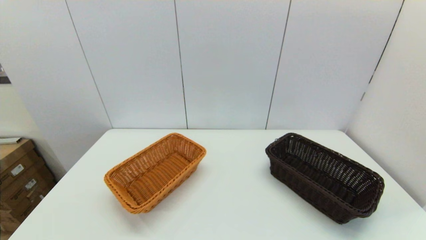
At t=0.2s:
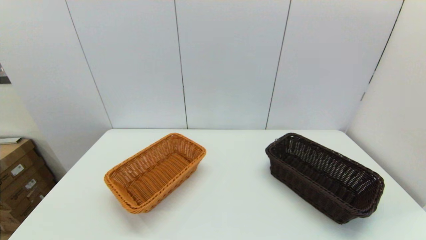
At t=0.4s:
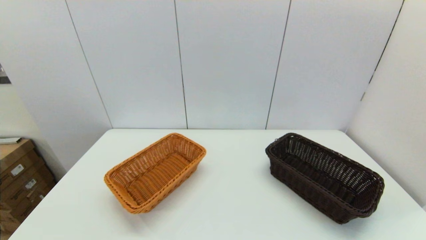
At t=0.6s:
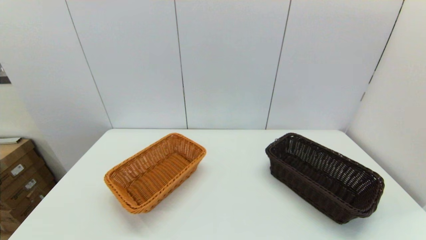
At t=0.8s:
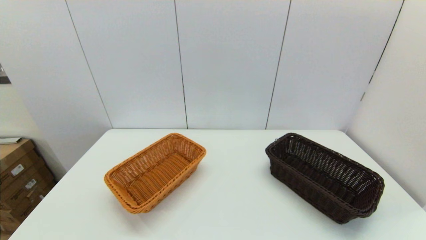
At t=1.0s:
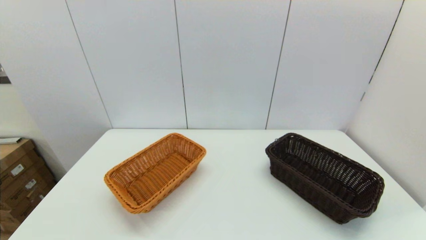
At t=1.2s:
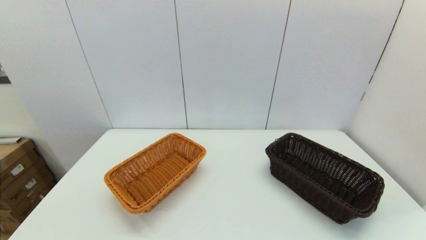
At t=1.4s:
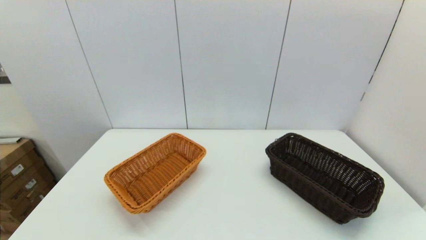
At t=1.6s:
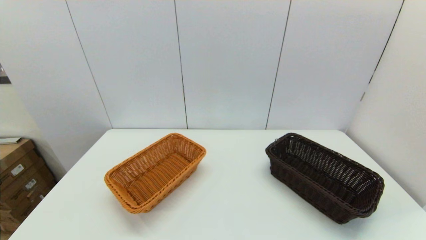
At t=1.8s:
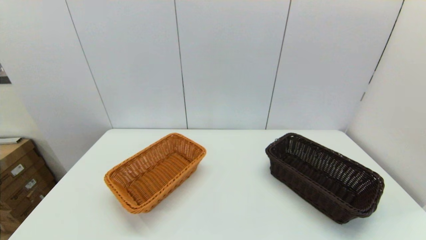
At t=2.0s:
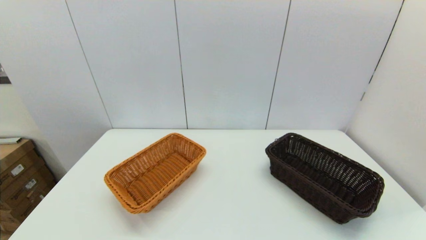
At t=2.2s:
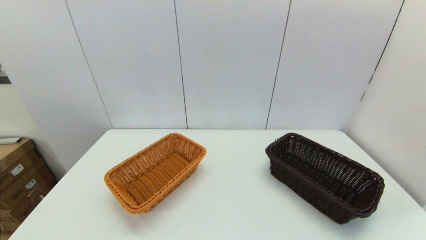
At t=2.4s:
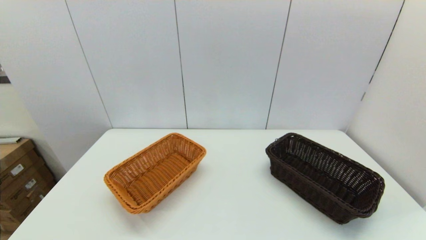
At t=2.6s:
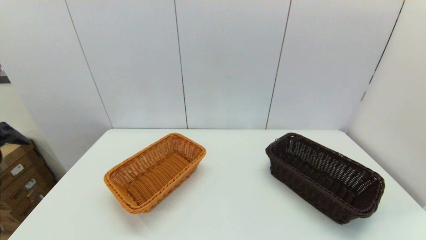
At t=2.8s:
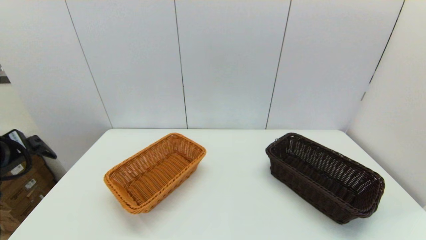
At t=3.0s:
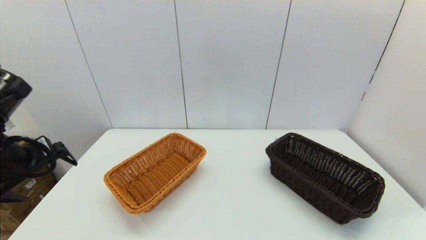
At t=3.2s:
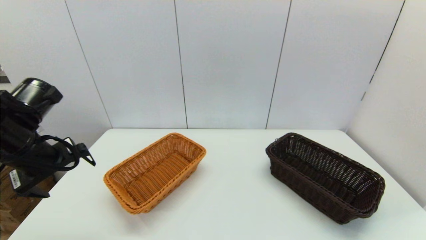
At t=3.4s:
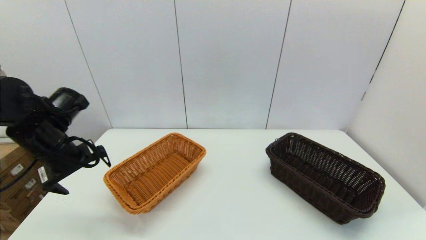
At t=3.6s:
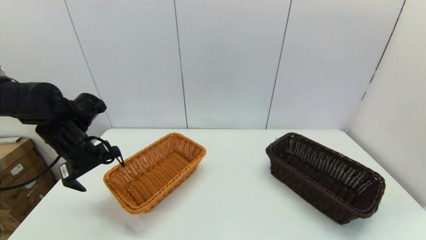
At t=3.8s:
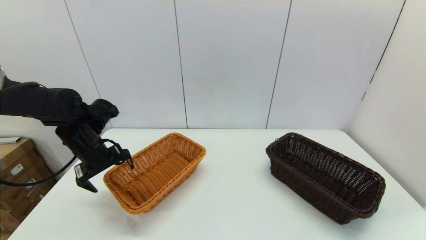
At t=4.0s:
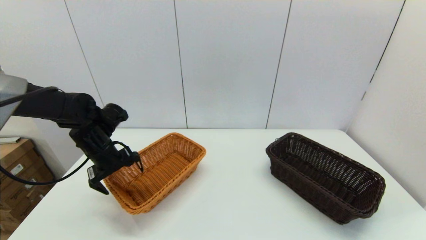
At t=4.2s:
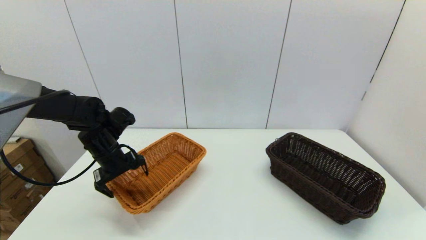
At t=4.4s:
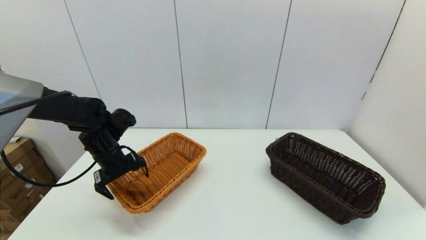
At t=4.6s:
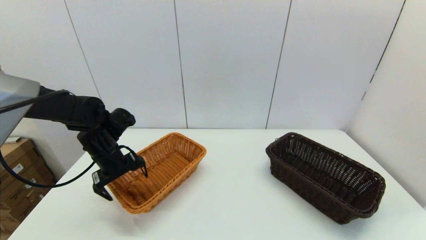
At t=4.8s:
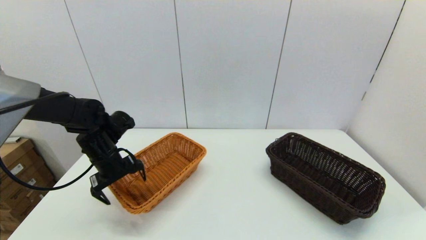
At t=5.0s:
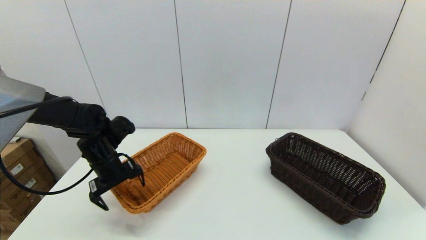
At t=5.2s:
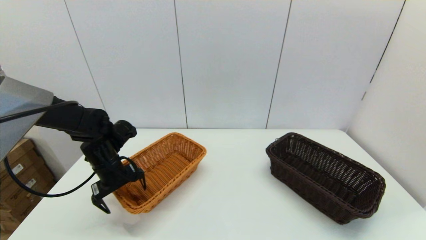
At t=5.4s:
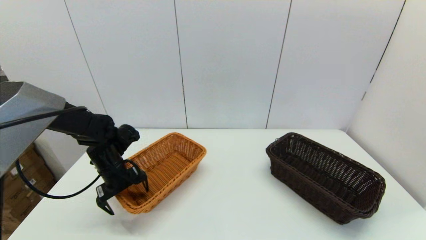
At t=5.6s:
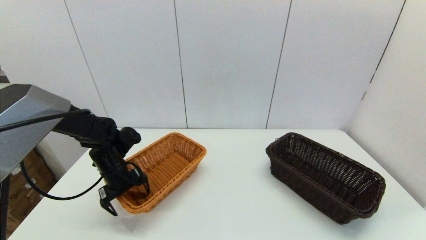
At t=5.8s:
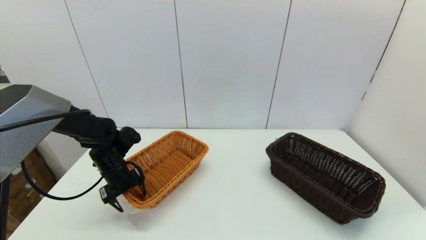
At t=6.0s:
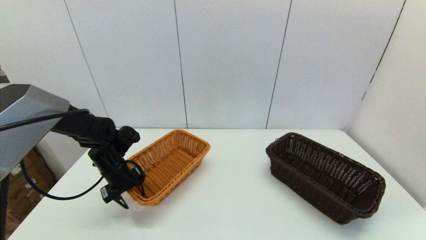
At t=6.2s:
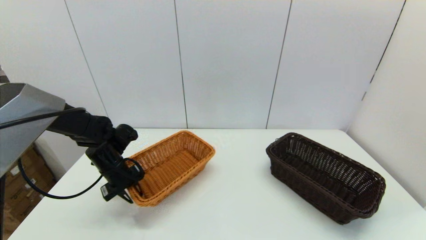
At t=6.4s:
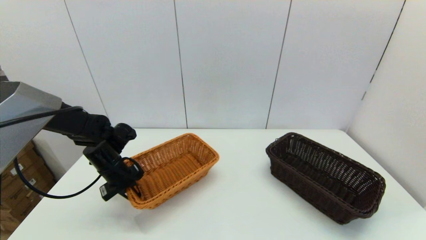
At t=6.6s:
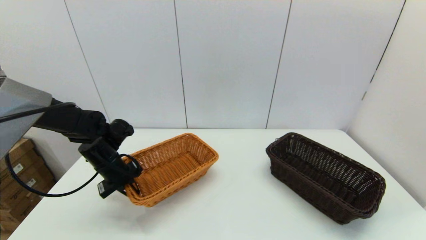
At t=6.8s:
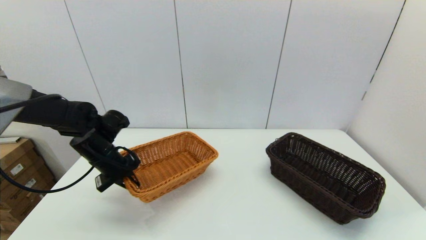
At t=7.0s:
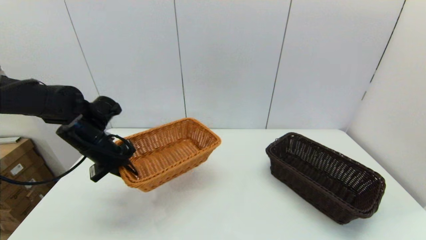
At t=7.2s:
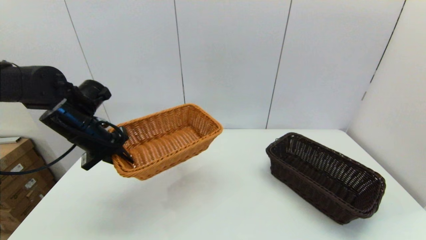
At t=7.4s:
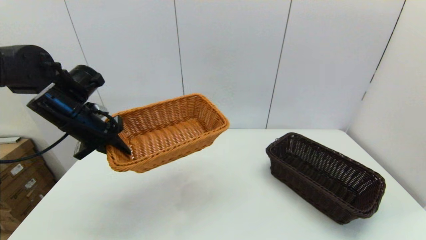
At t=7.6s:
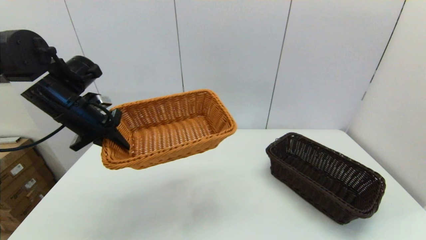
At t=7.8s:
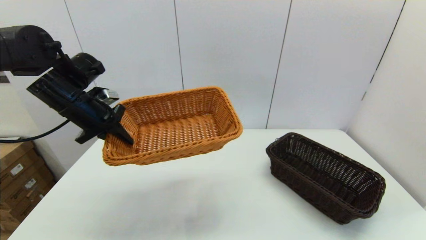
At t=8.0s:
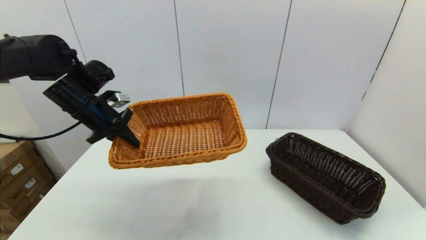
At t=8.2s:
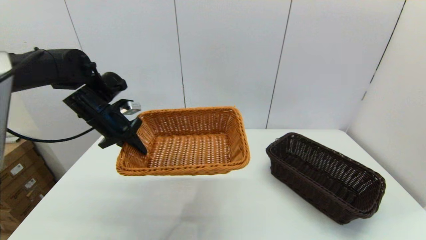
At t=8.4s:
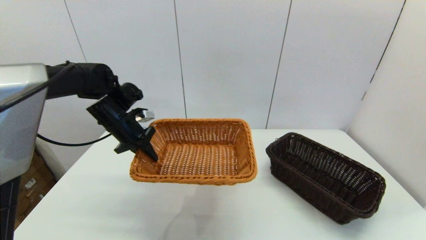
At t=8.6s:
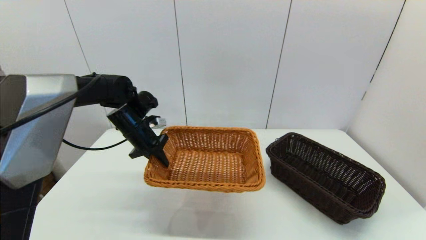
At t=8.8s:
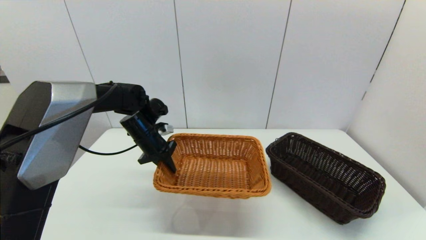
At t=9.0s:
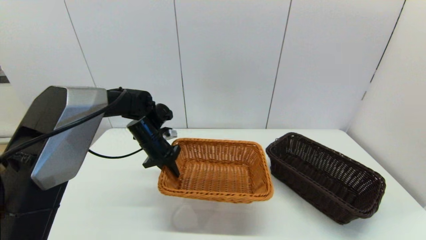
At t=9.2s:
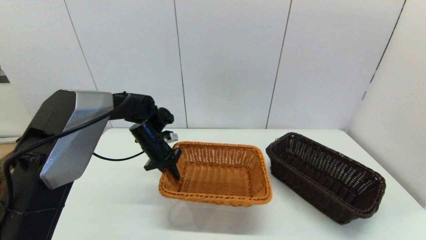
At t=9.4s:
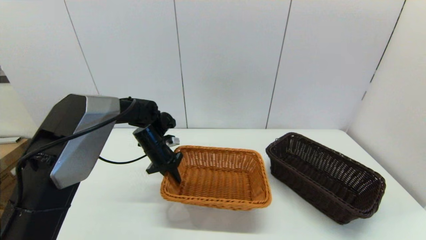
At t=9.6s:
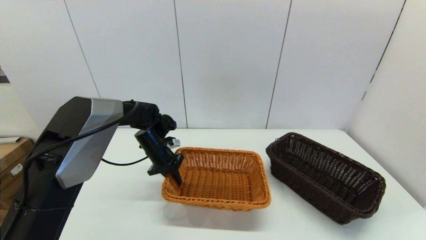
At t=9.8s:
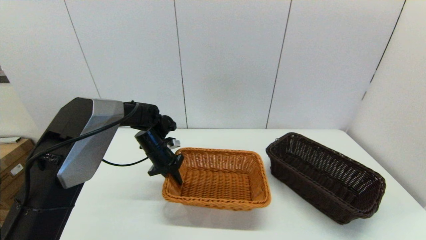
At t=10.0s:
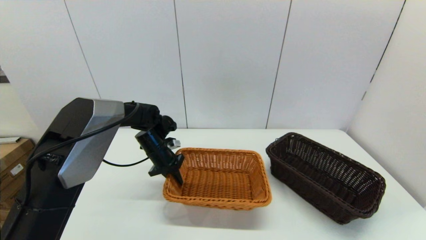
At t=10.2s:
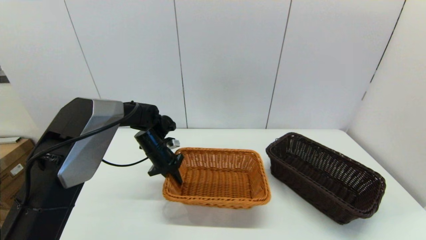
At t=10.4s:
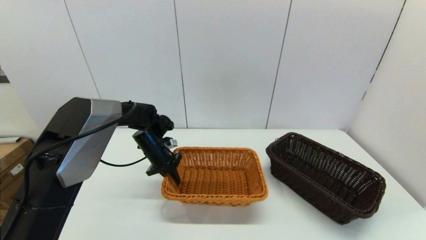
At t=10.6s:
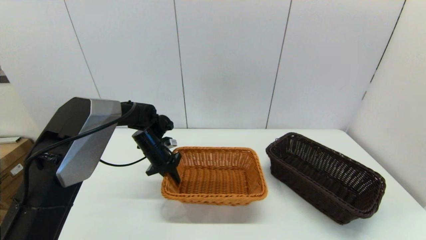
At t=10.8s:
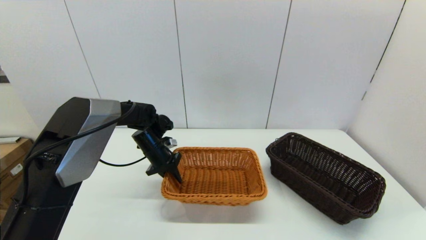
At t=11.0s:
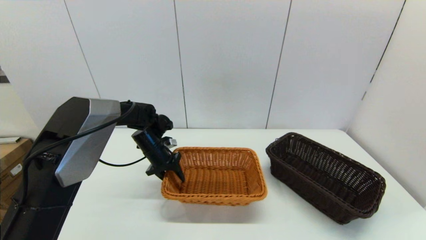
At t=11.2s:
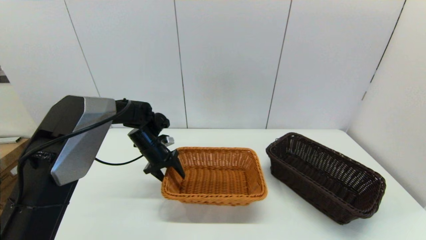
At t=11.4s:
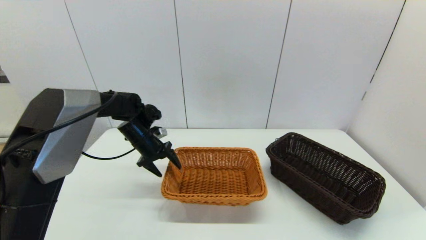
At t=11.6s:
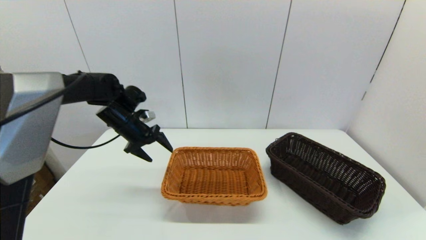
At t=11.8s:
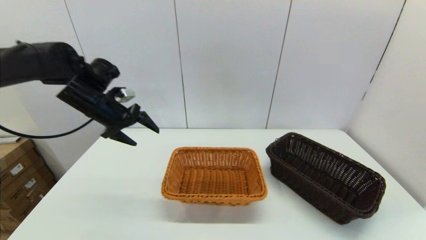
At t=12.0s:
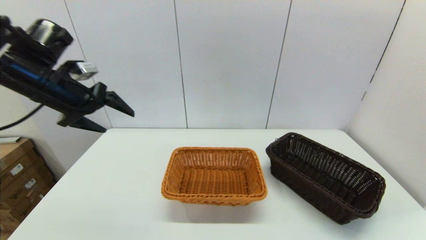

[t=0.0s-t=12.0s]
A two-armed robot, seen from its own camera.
Task of the whole recording: stack a basket on top of another basket.
Step, t=2.6s to t=6.4s: Grasp the light basket with the left gripper.
Step, t=6.8s to t=11.4s: Place the light basket on the middle of the table with the left gripper.
t=1.6s to t=3.0s: The left gripper goes roughly 25 cm forward.
t=3.0s to t=4.4s: The left gripper heads forward and downward, covering about 20 cm.
t=4.4s to t=6.0s: The left gripper goes roughly 5 cm downward, and closes.
t=6.0s to t=7.6s: The left gripper heads upward, covering roughly 20 cm, and closes.
t=7.6s to t=9.0s: The left gripper travels downward, to the right and forward by approximately 20 cm.
t=9.0s to t=10.4s: The grippers make only small movements.
t=10.4s to t=12.0s: The left gripper goes approximately 30 cm upward, backward and to the left, and opens.

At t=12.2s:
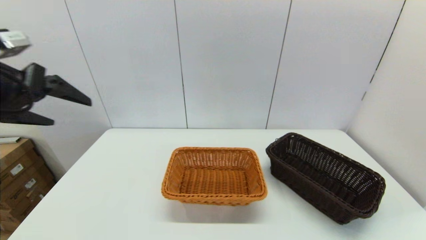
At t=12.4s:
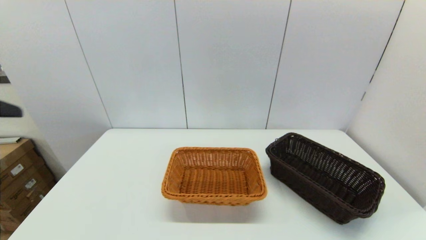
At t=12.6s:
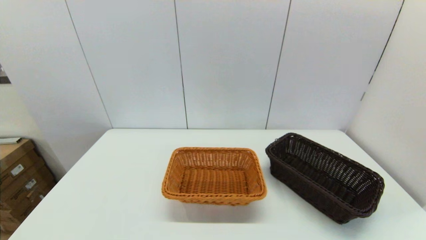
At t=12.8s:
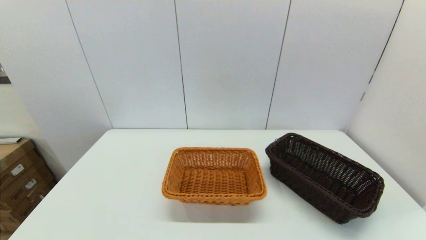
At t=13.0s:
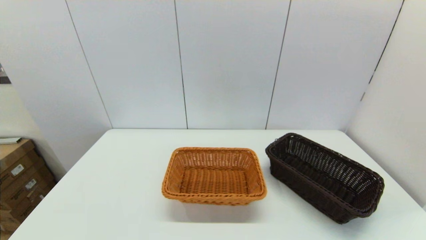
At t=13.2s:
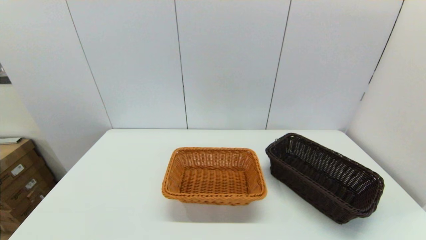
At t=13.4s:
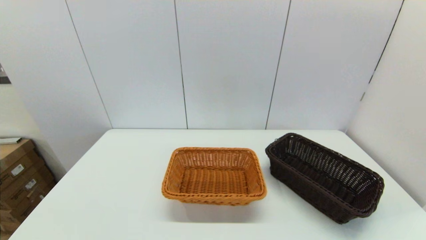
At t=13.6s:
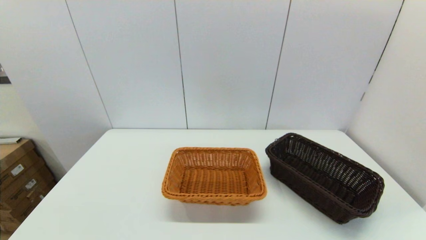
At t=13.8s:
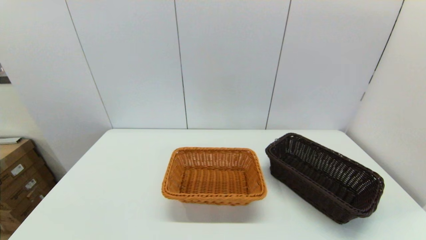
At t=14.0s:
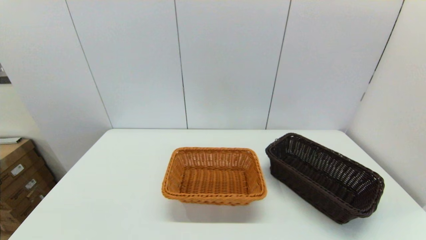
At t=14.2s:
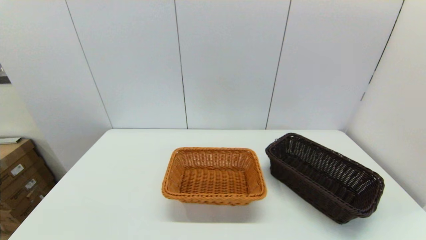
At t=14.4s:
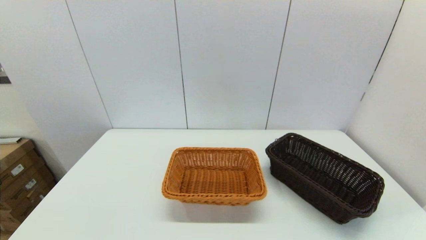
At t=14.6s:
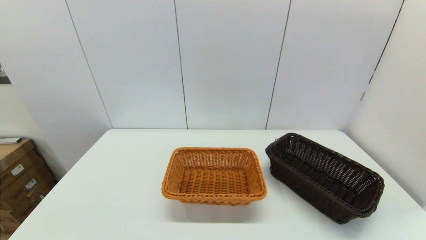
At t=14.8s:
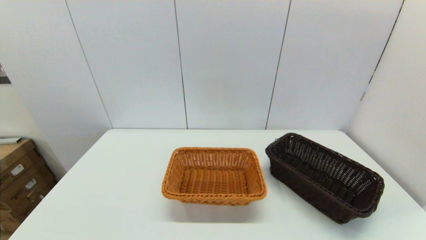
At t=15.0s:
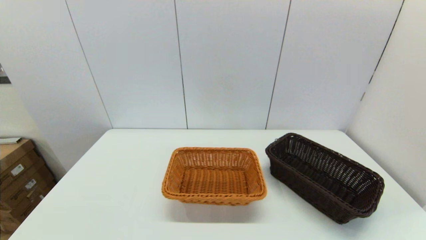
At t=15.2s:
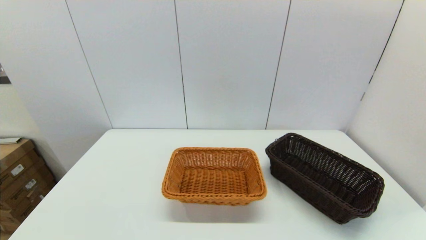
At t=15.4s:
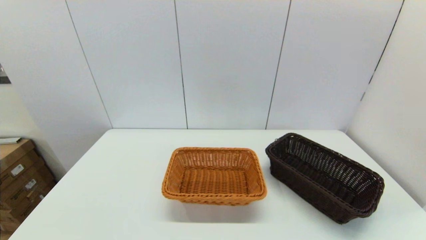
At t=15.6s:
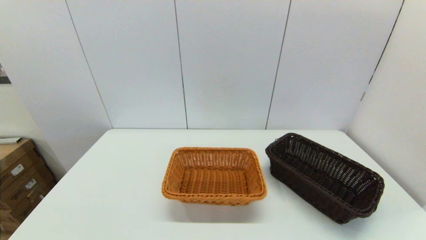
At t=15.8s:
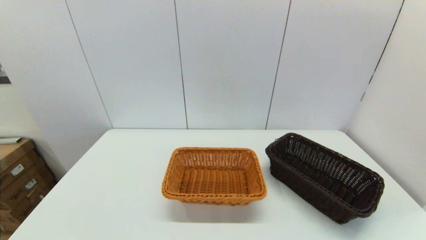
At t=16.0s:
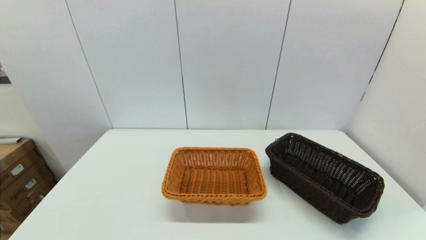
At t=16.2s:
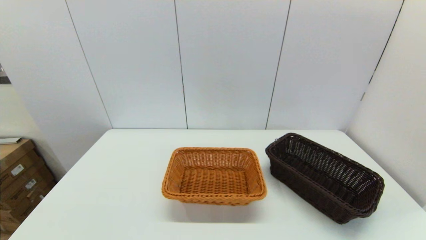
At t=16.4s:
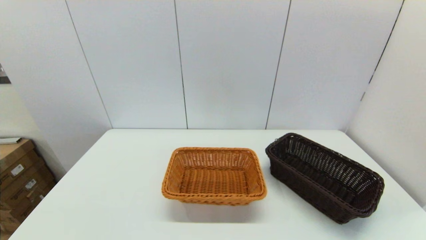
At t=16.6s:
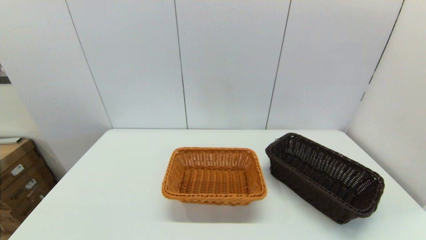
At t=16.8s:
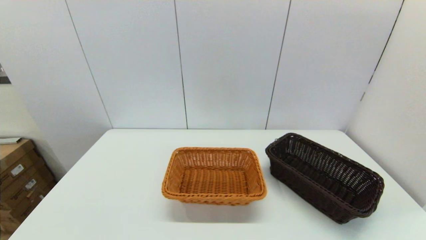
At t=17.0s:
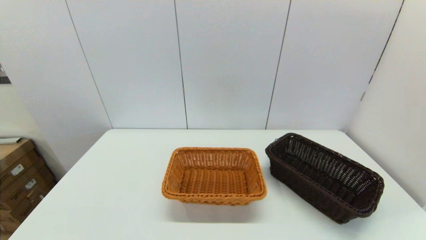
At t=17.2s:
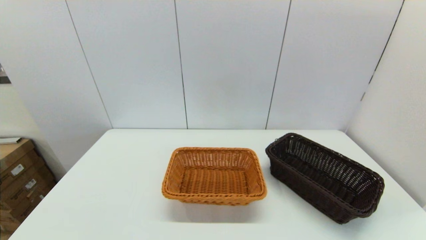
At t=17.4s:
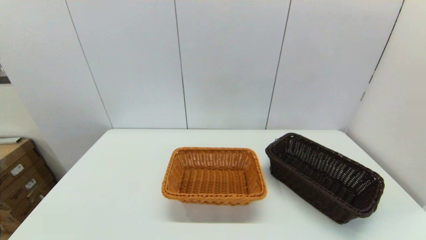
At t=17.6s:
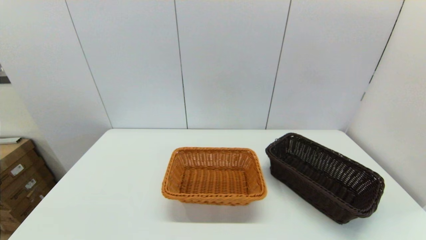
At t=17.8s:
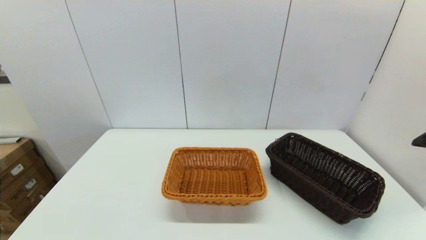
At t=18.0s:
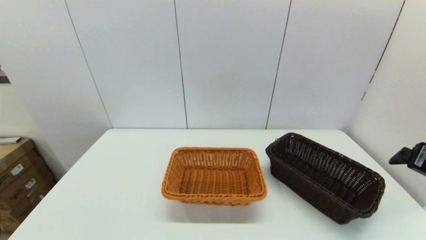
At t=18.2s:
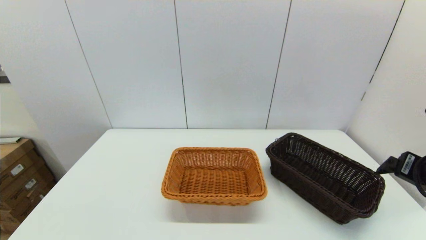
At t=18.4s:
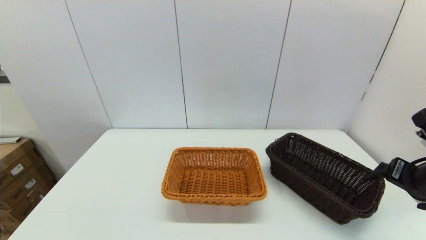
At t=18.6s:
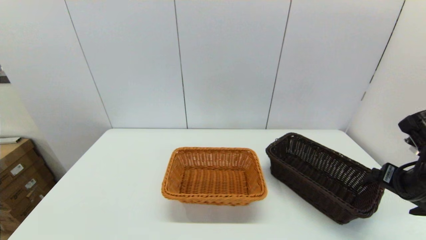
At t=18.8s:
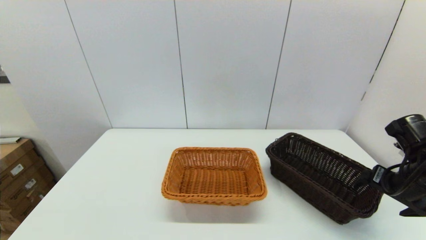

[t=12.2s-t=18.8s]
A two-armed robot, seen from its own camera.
Task of the whole recording: stack a basket on top of another basket.
t=12.2s to t=13.8s: The left gripper travels downward and backward by about 35 cm.
t=17.2s to t=18.8s: The right gripper moves forward and downward, about 25 cm.
